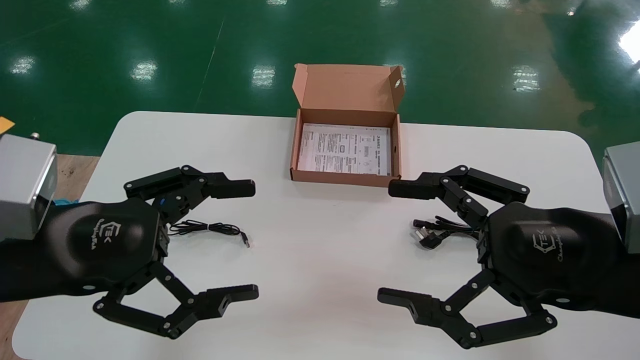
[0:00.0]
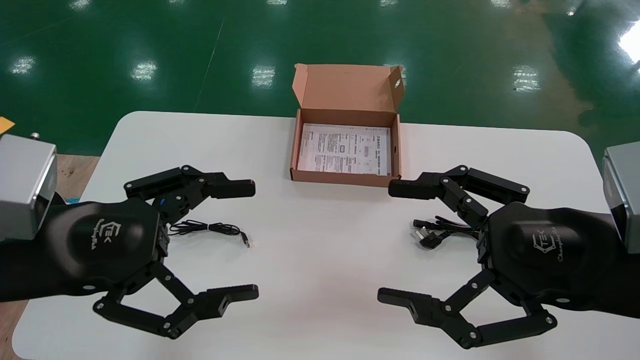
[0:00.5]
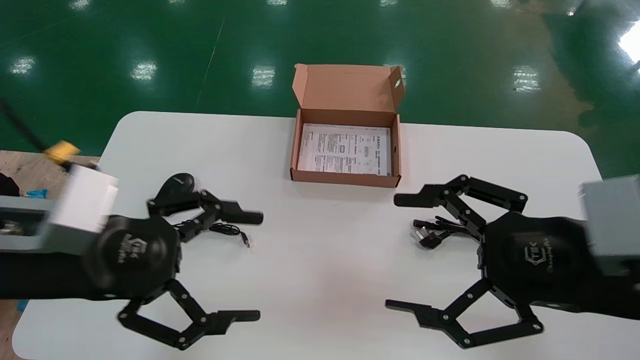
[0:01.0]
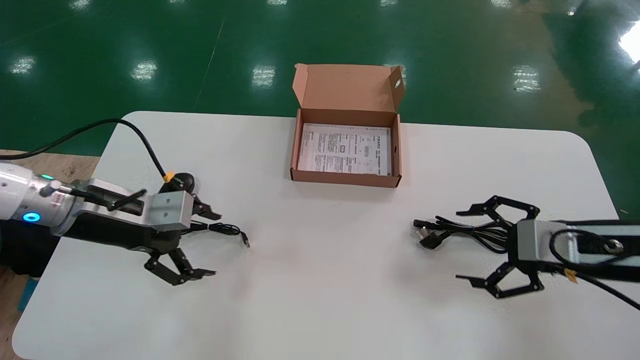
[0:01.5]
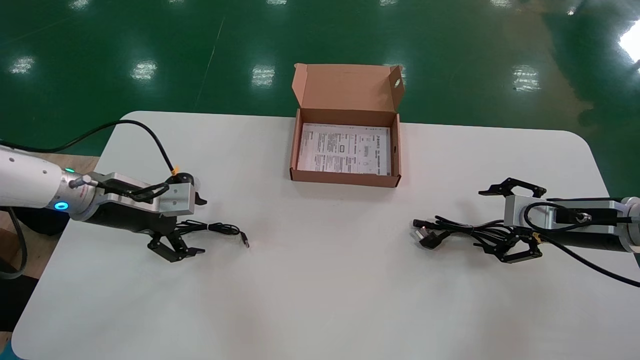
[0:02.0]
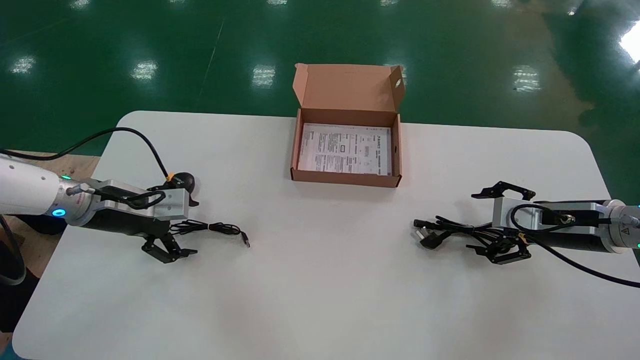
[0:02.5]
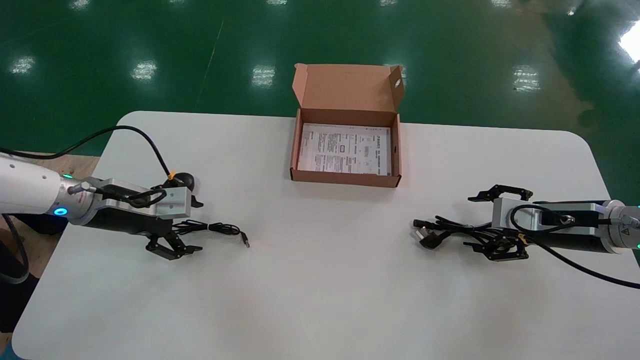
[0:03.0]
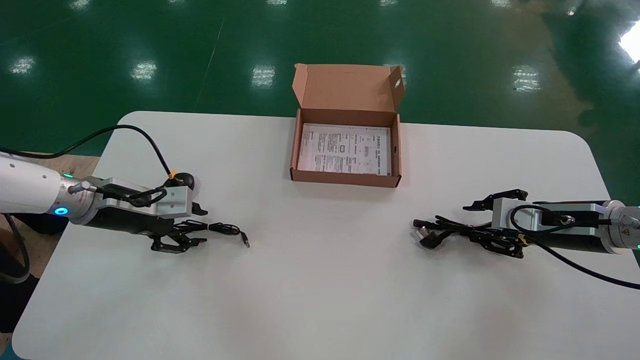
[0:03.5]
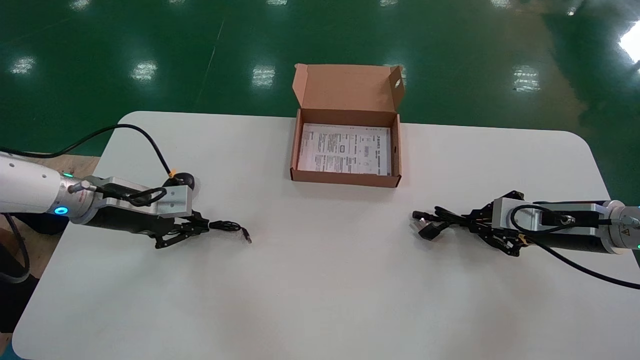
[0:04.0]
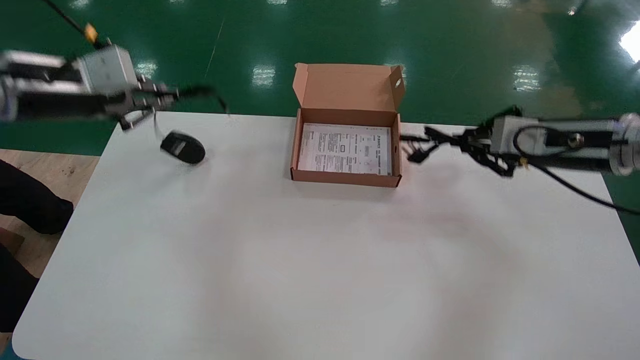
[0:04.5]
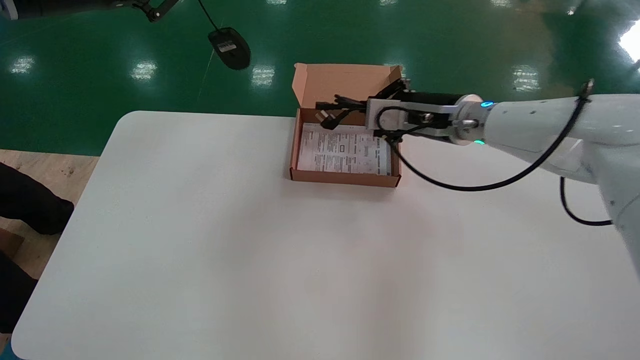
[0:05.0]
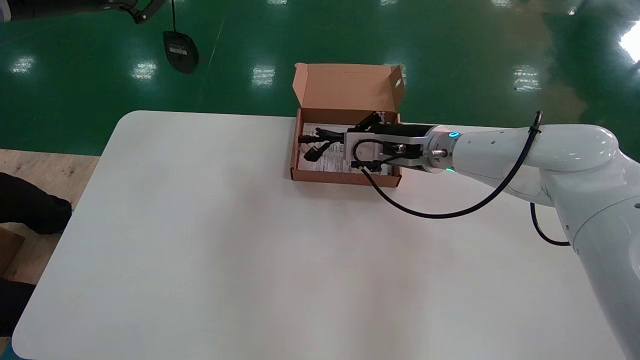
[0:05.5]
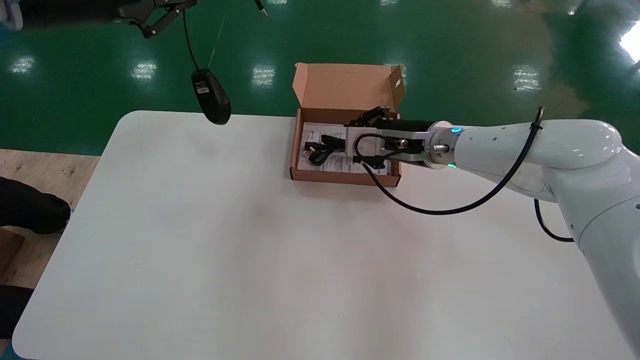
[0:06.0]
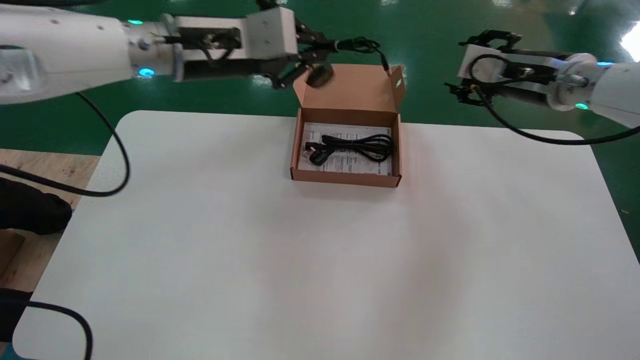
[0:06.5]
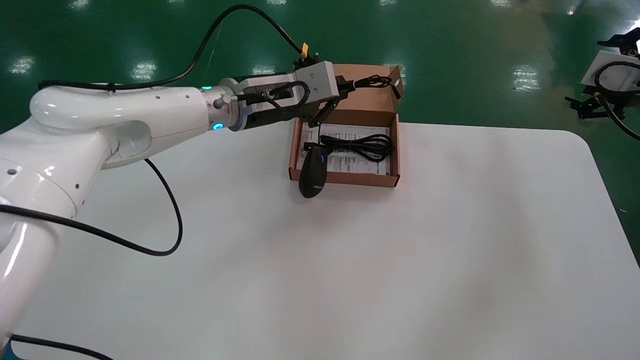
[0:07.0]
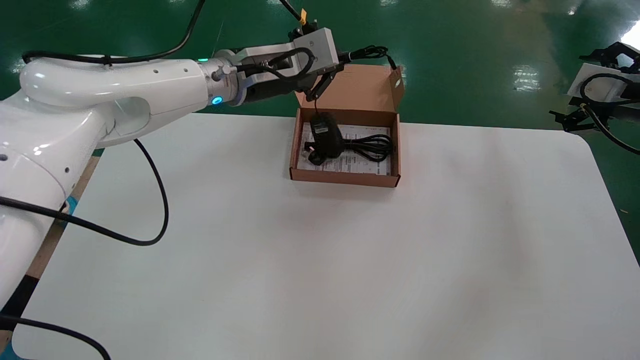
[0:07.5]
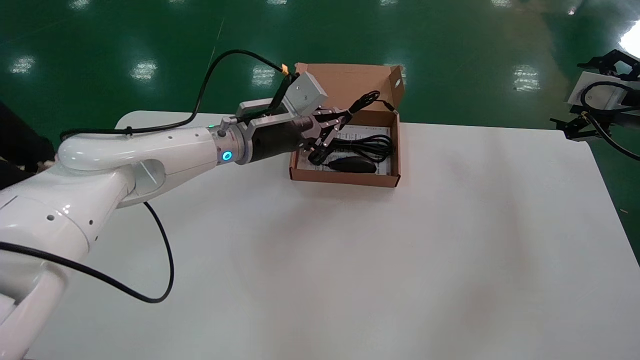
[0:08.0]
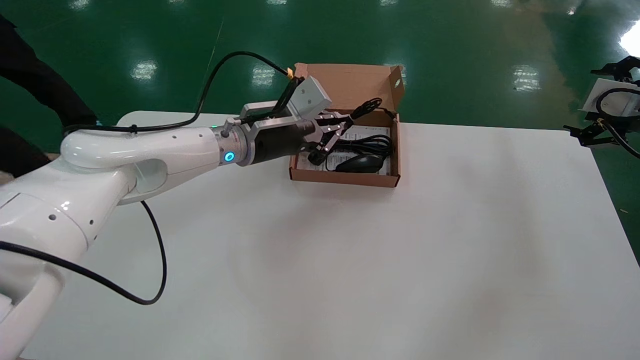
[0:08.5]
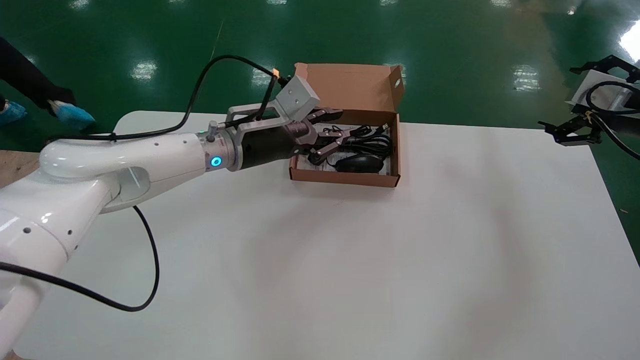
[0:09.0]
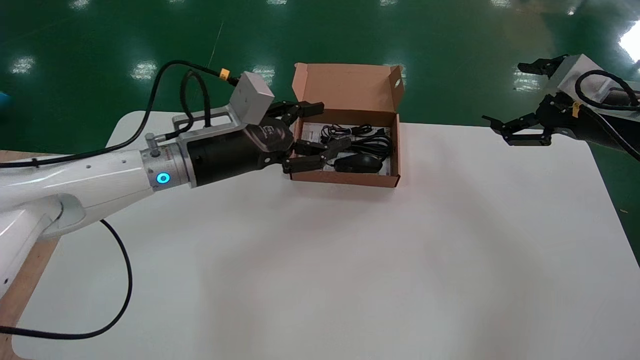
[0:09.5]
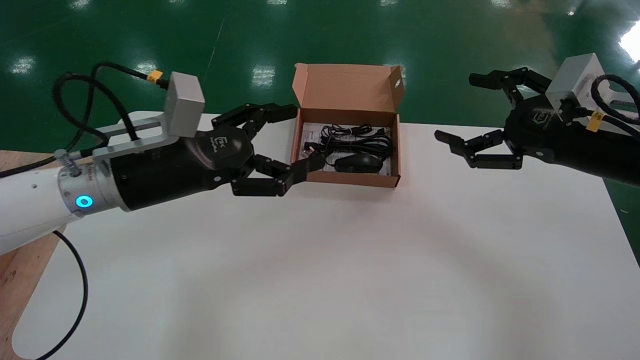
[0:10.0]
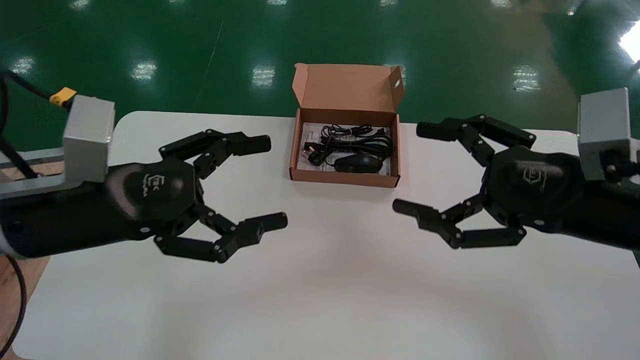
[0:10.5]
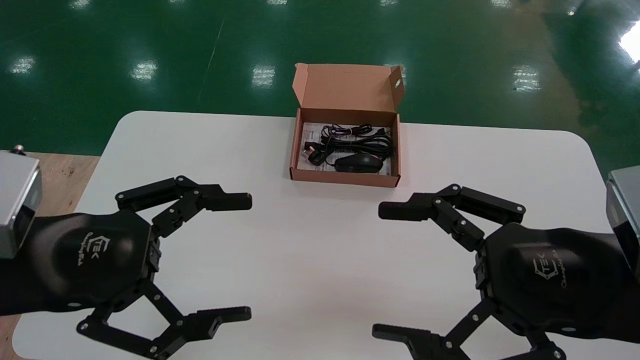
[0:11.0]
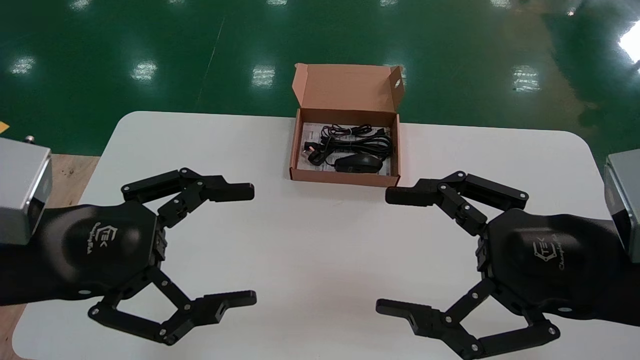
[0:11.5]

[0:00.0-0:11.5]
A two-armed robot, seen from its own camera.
Step, 0:01.0 to 0:04.0: Simultaneously pick up the mouse and power cord from the accessory packaging area.
Step, 0:04.5 to 0:09.0: Place the mouse and power cord into the box.
0:00.0 to 0:02.0: The right gripper heads forward, to the right and downward, covering roughly 25 cm. The left gripper shifts approximately 20 cm forward.
0:02.0 to 0:04.0: The left gripper closes. Meanwhile the right gripper closes its fingers.
0:04.0 to 0:06.0: The right gripper shifts roughly 25 cm to the left, upward and forward, while the left gripper is displaced upward by approximately 25 cm.
0:06.0 to 0:07.5: The right gripper travels to the right by roughly 25 cm, and opens its fingers; the left gripper is displaced to the right, downward and forward by some 25 cm.
0:07.5 to 0:09.5: The right gripper travels to the left by roughly 5 cm, while the left gripper moves downward, backward and to the left, about 10 cm, and opens up.
0:09.5 to 0:11.5: The two grippers go about 25 cm backward and to the left. The left gripper opens.

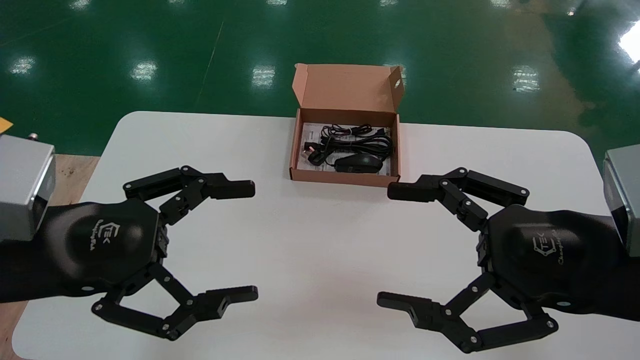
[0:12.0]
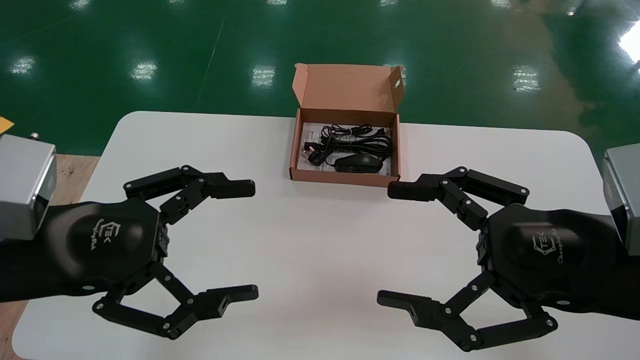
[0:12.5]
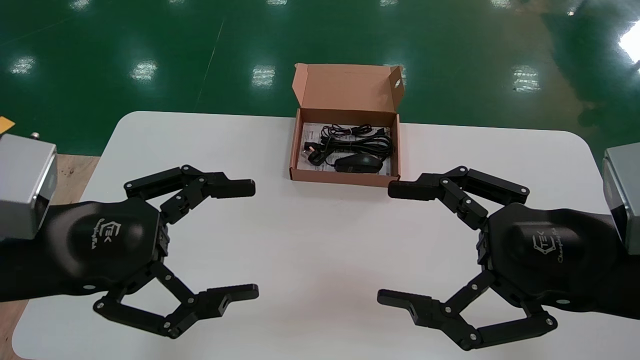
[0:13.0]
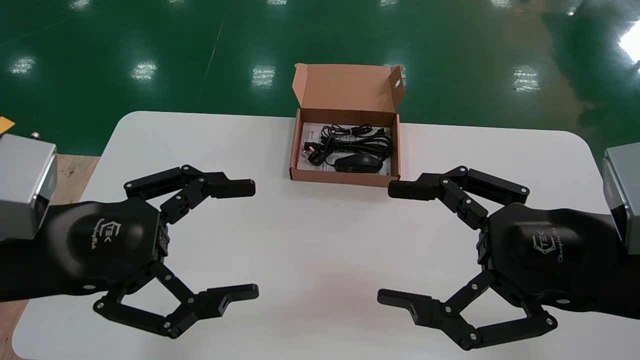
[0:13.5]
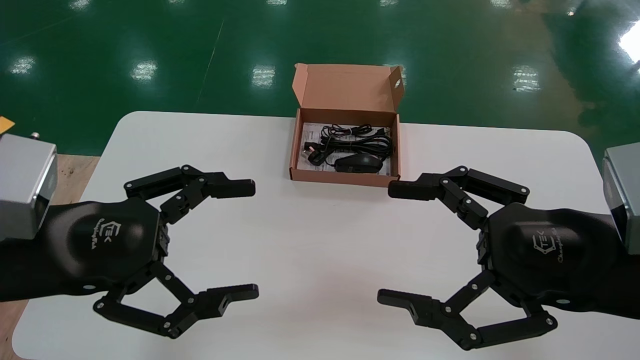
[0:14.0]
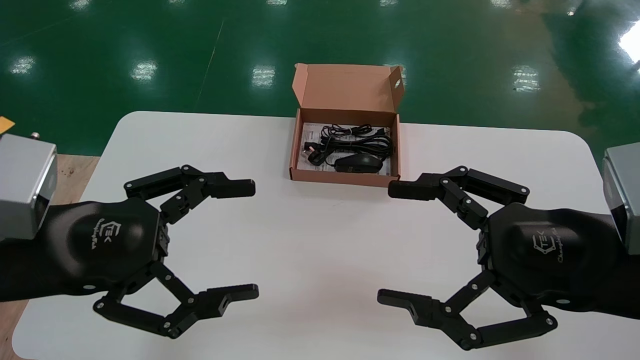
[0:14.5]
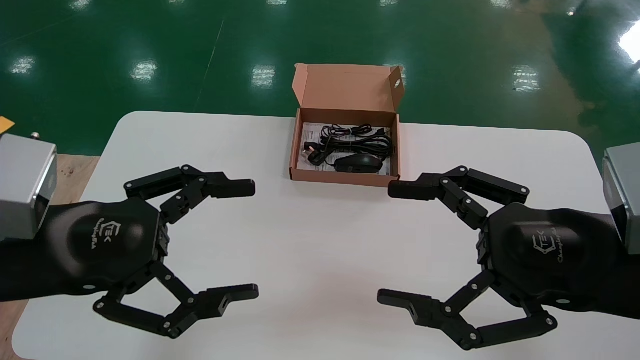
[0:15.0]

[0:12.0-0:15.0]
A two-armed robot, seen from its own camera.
0:12.0 to 0:15.0: Both grippers stay about where they are.
